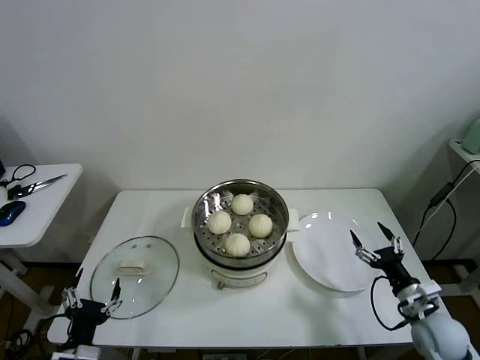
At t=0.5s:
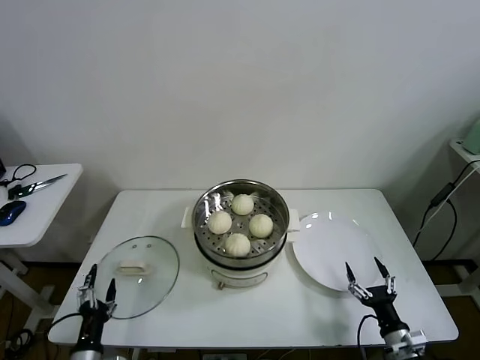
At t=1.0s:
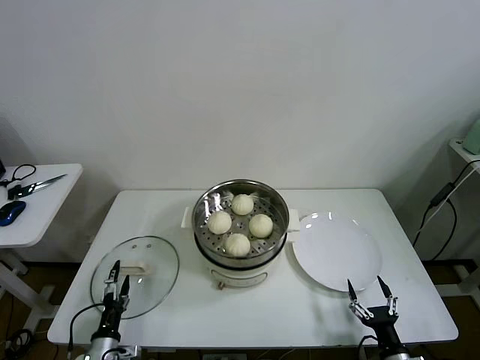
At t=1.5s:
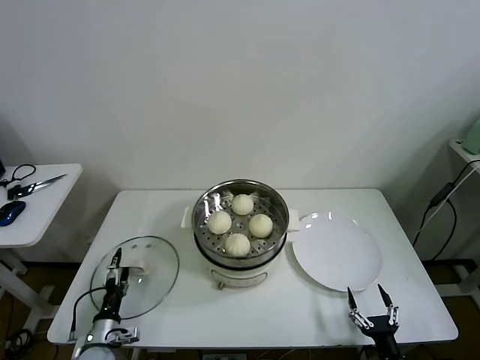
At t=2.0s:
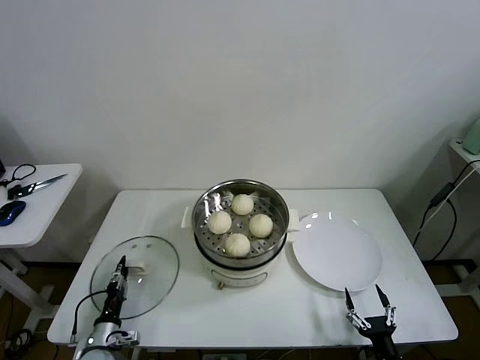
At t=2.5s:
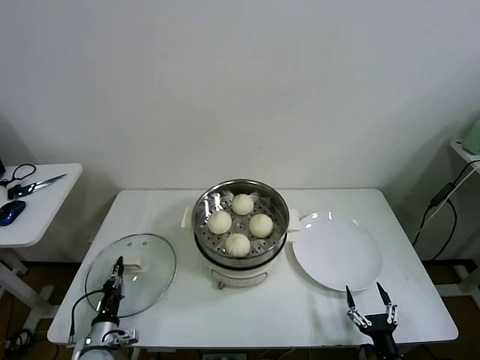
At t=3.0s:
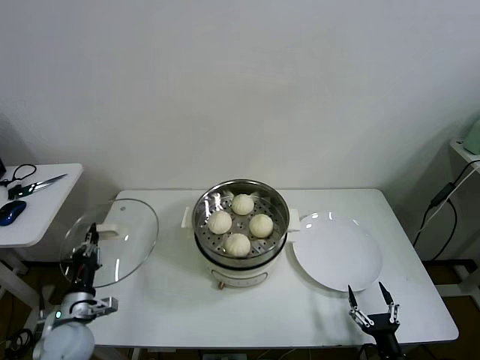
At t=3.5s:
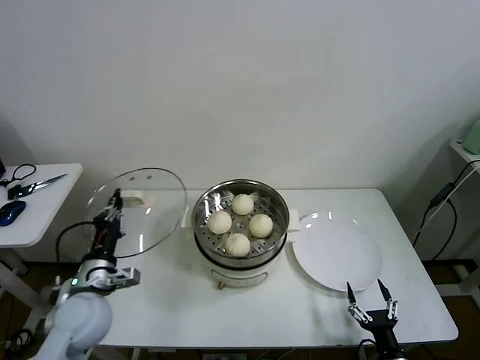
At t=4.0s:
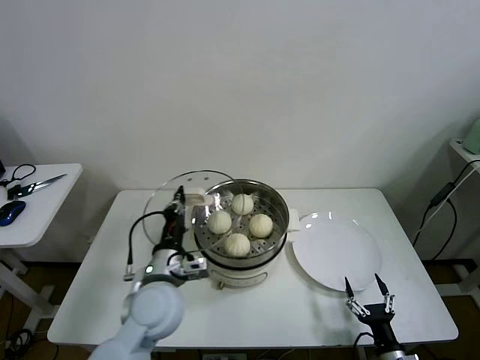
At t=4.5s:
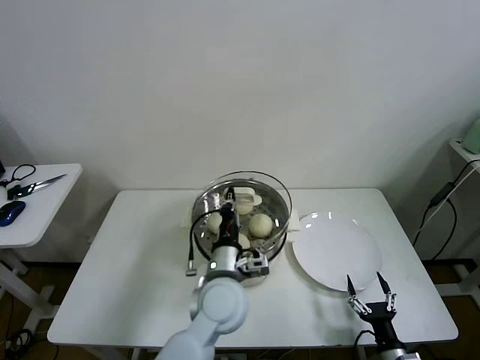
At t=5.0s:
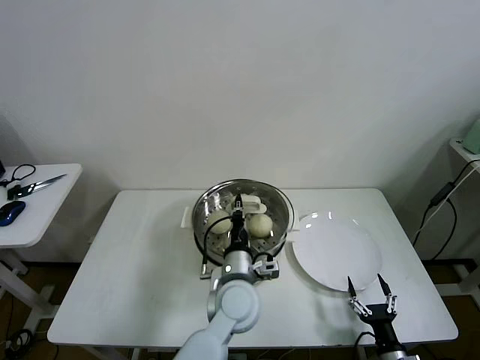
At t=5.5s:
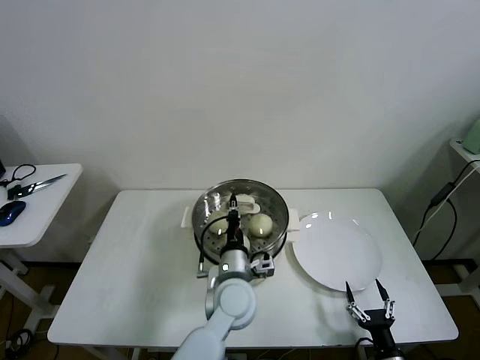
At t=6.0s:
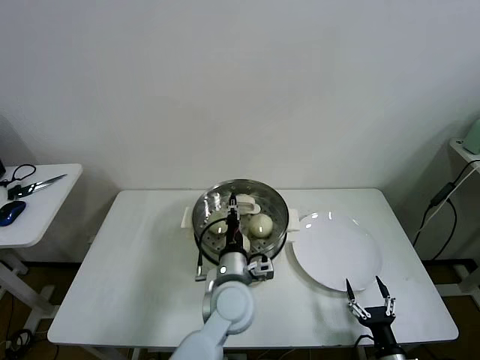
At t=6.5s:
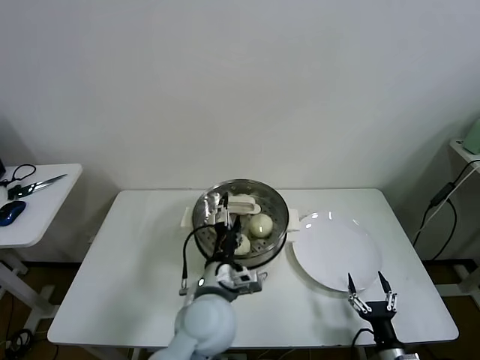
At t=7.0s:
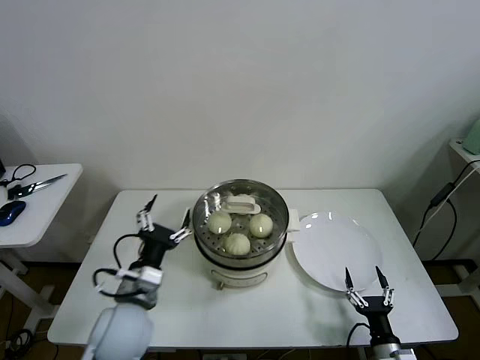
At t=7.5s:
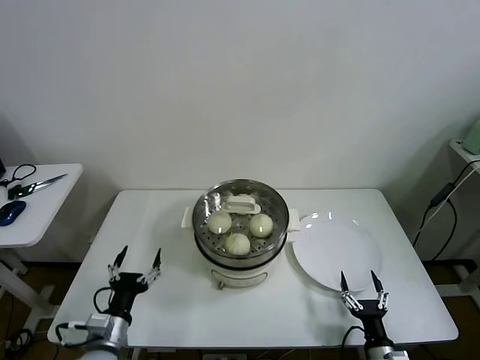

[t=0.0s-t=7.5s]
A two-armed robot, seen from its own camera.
Task of the whole recording: take steamed baozi put them in steamer then cover it.
Step, t=0.0s to t=2.0s: Grasp the pot lid with left gripper.
Step, t=2.5s to t=6.0s: Place the pot lid on the steamer with left gripper.
t=0.0s to t=2.0s: The left gripper is displaced downward and forward by roughly 20 cm, and closes, while the right gripper moves backward, downward and to the left, approximately 20 cm.
t=2.0s to t=4.0s: The left gripper heads upward and to the right, covering roughly 30 cm, and closes up.
t=4.0s to t=5.5s: The left gripper travels to the right by about 15 cm.
t=5.5s to t=7.5s: The left gripper is displaced to the left and backward by some 30 cm, and opens its fingers.

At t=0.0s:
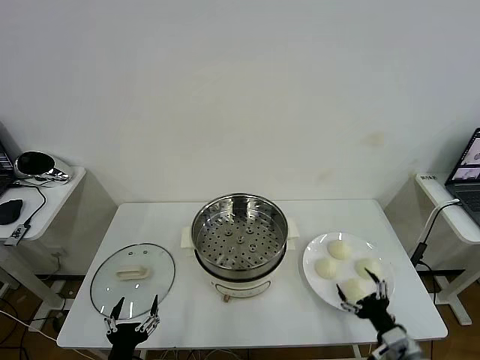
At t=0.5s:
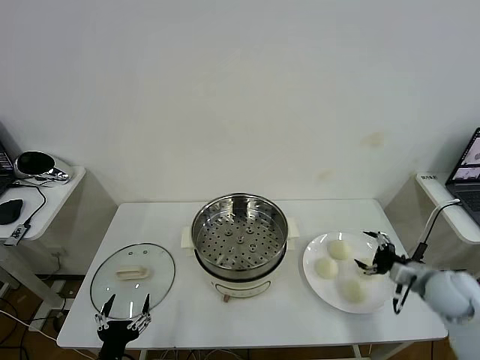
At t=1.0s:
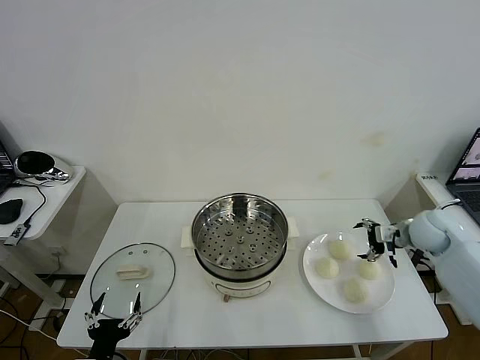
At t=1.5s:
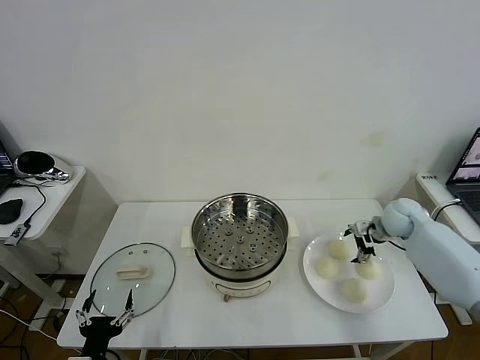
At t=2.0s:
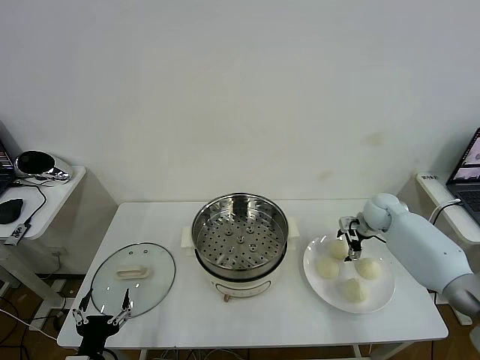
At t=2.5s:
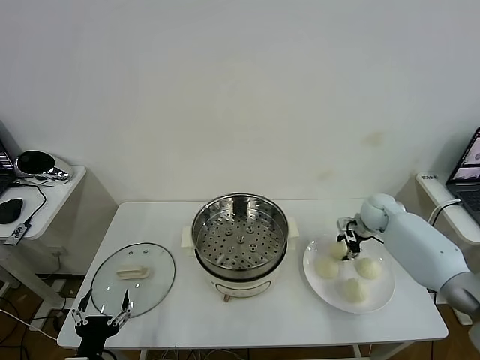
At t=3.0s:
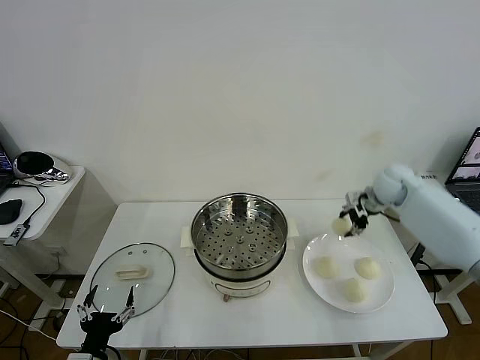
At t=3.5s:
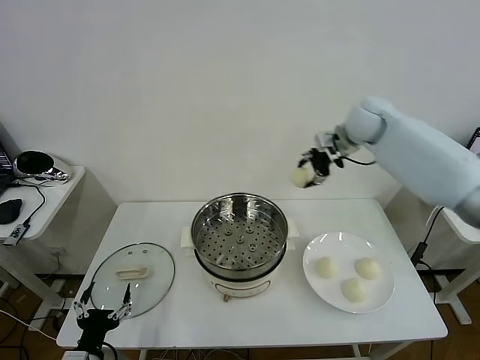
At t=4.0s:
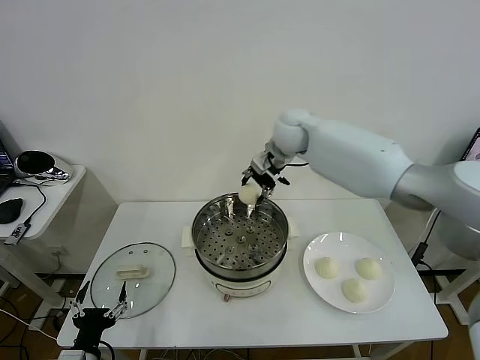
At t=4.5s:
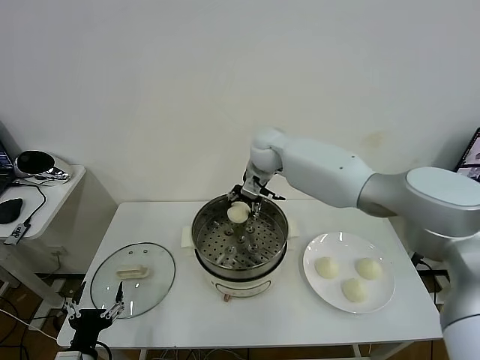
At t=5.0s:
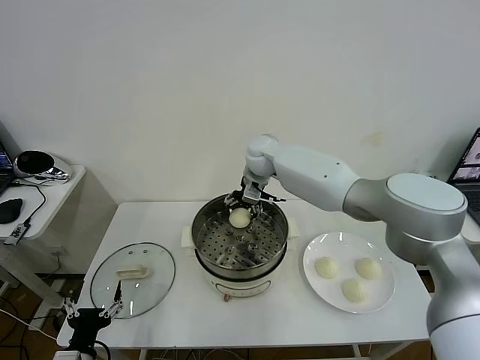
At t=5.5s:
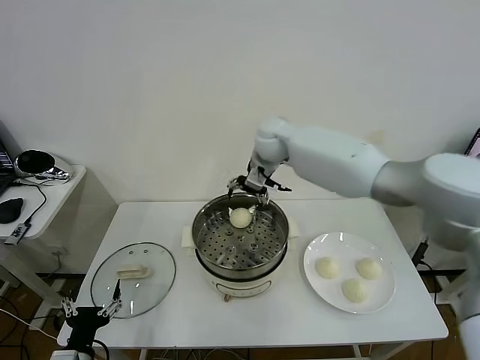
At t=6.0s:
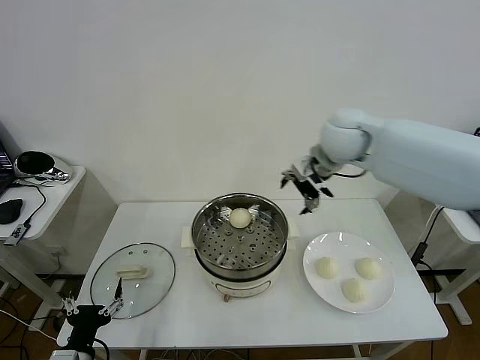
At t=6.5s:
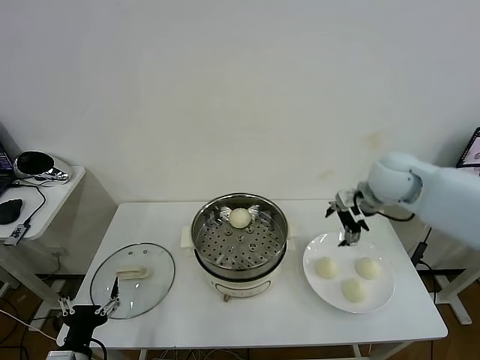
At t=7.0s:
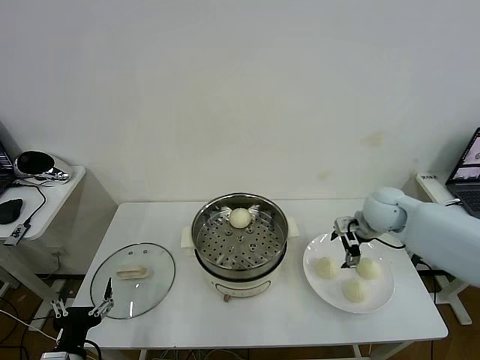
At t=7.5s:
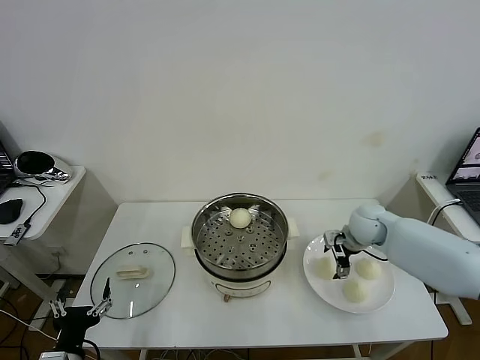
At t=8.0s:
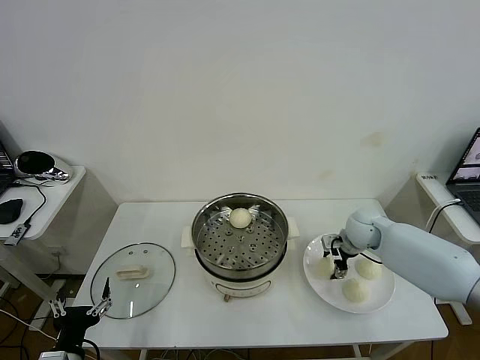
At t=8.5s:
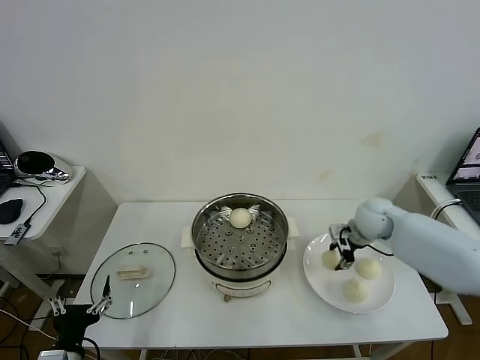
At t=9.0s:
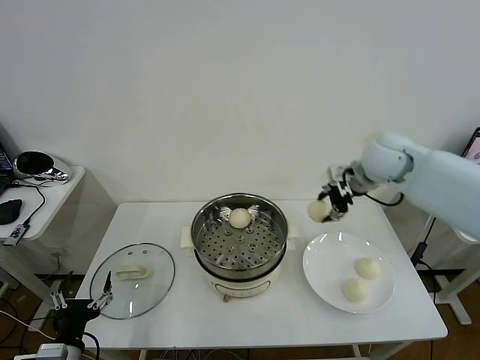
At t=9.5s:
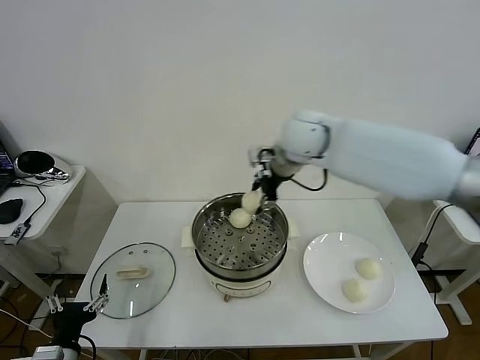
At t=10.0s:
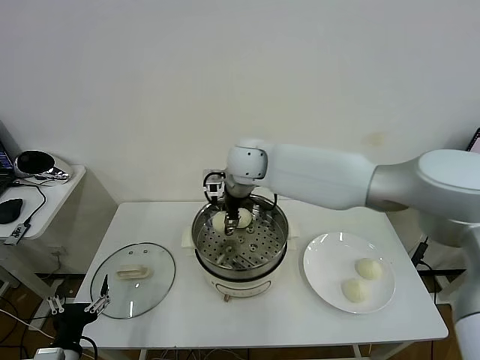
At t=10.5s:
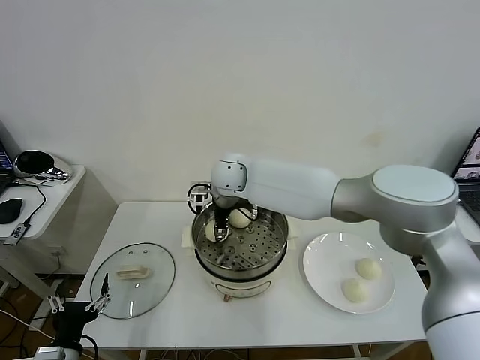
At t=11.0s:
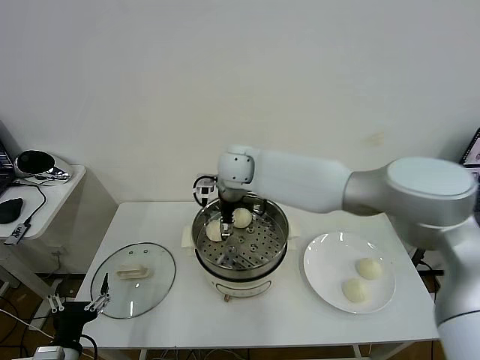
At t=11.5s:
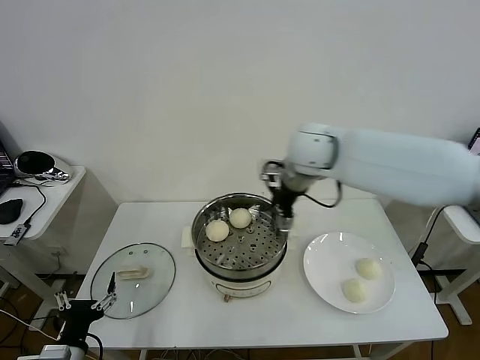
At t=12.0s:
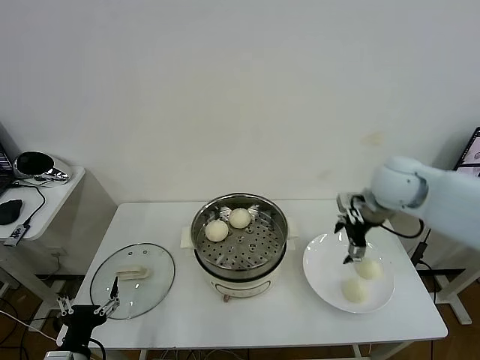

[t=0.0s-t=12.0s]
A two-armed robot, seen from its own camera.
Task of the whole recording: take steamed baozi put them in steamer then cover it.
Step, t=0.0s to t=2.0s: Grasp the baozi in the plate with right gripper.
Step, t=2.5s to t=5.0s: Place the baozi on the steamer with right gripper.
Step, t=5.5s to t=8.0s: Grasp the baozi in the plate with right gripper.
Step, t=8.5s to t=11.0s: Place the baozi on the steamer with right gripper.
t=2.0s to t=4.0s: The right gripper goes approximately 35 cm to the left and upward, and closes.
t=4.0s to t=6.0s: The right gripper moves to the right and backward, approximately 15 cm, and opens.
t=6.0s to t=8.0s: The right gripper moves downward, roughly 25 cm, and closes up.
t=8.0s to t=10.0s: The right gripper moves to the left and upward, approximately 35 cm.
t=10.0s to t=12.0s: The right gripper travels to the right by some 30 cm, and opens up.

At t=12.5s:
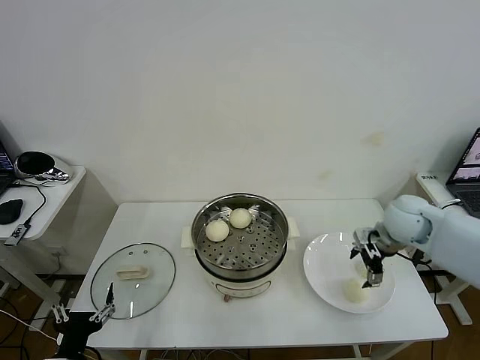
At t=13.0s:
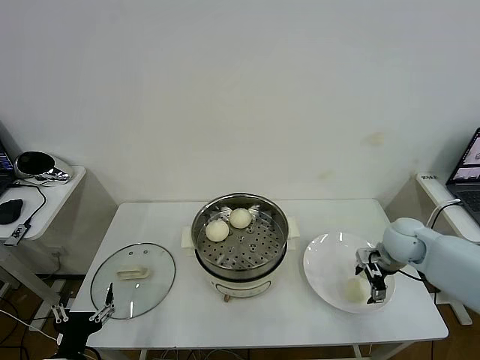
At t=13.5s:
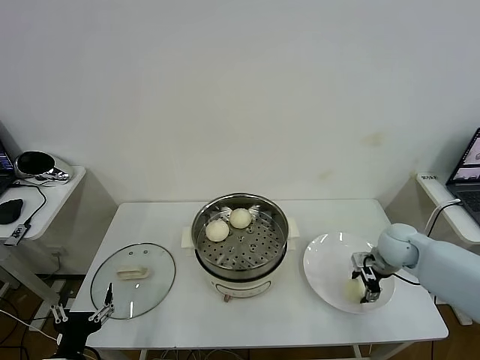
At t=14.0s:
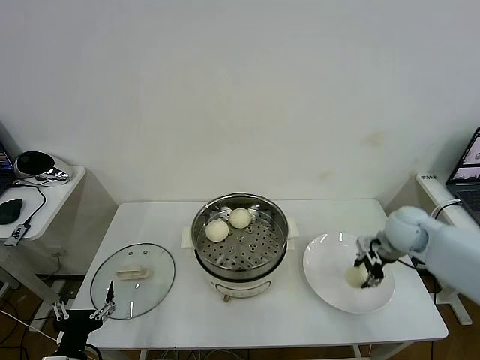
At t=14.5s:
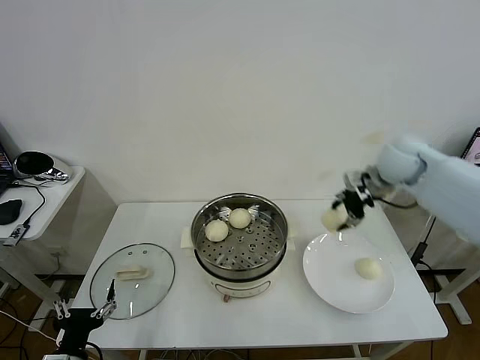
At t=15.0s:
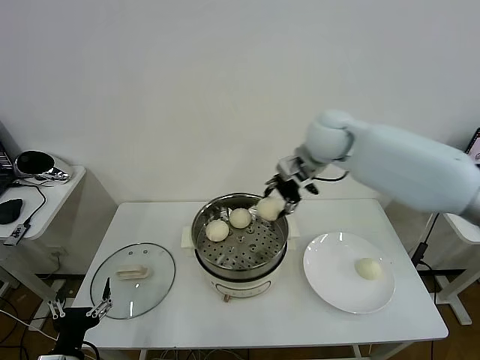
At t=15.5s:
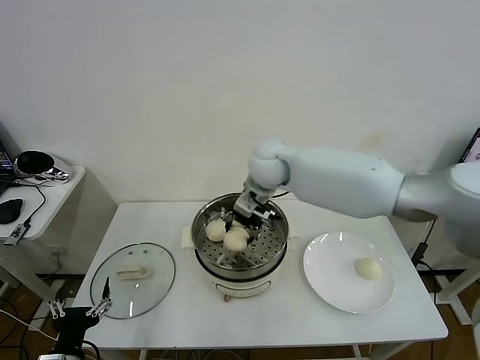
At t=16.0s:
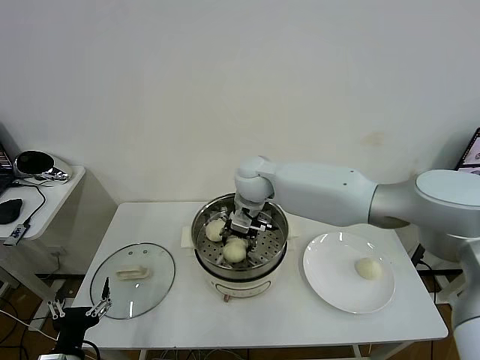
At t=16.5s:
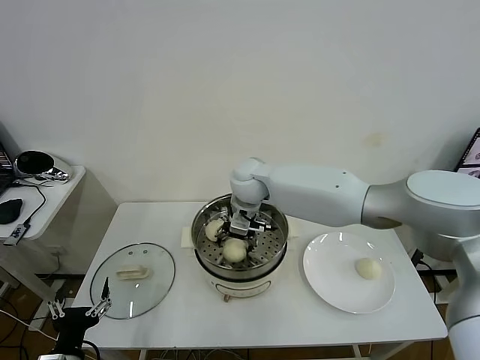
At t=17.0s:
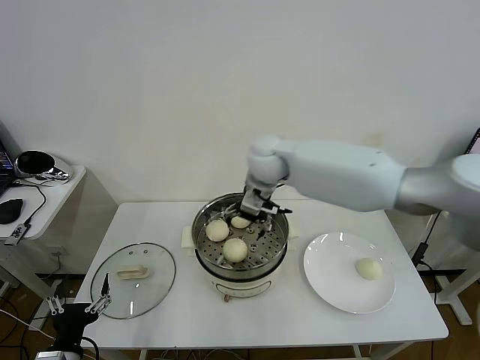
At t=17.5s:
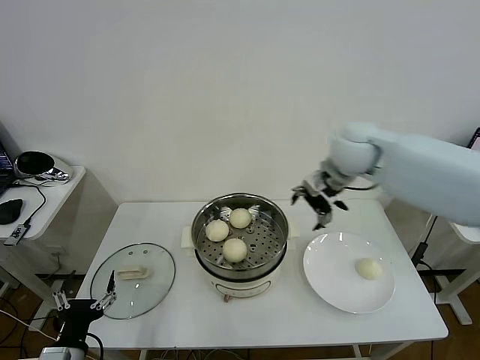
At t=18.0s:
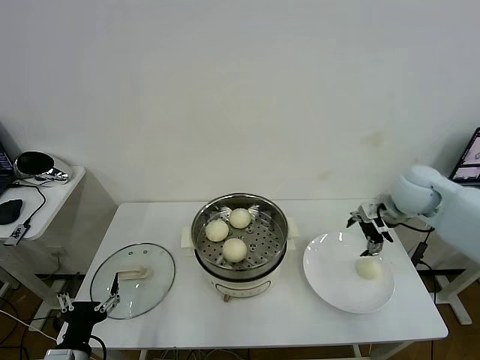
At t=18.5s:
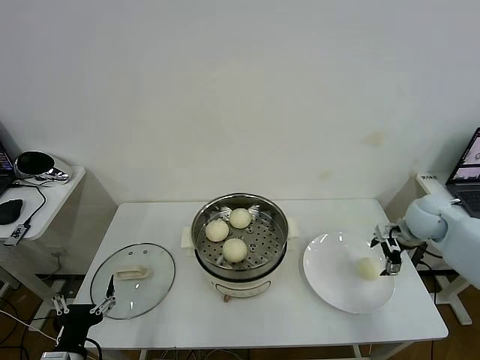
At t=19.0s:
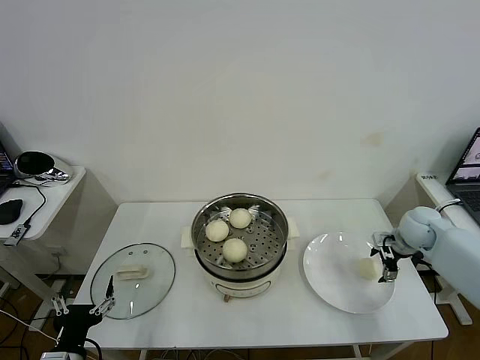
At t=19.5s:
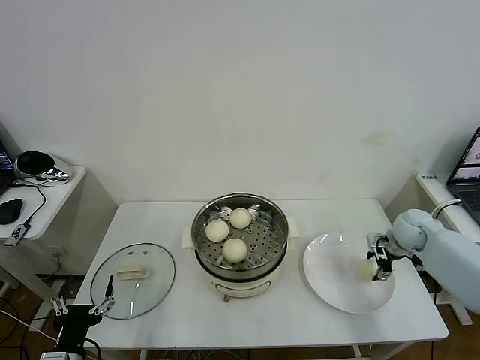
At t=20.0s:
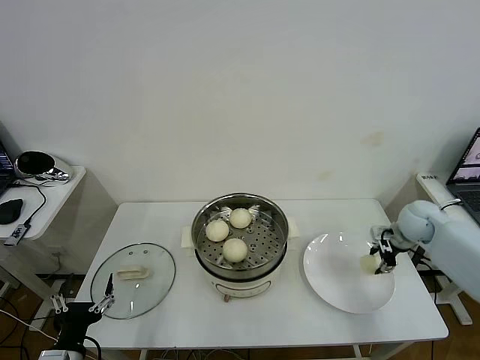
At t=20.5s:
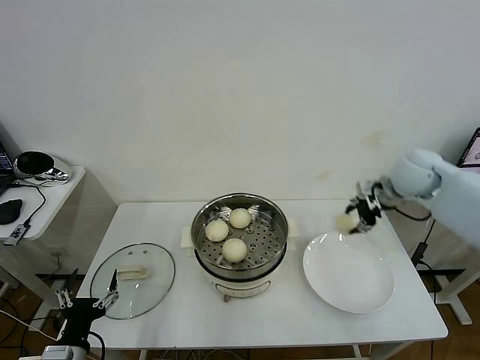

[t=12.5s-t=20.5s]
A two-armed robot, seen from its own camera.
Task of the whole recording: take steamed baozi put them in steamer then cover it.
Step, t=14.0s to t=16.5s: Place the baozi on the steamer with right gripper.
Step, t=17.0s to t=19.5s: Grasp the baozi in the plate with right gripper.
t=12.5s to t=14.5s: The right gripper heads upward and forward, covering approximately 15 cm, and closes up.
t=14.5s to t=16.5s: The right gripper shifts approximately 30 cm to the left, and opens.
t=16.5s to t=18.5s: The right gripper heads to the right, covering roughly 40 cm.
t=18.5s to t=20.5s: The right gripper moves upward and to the left, some 15 cm, and closes.
